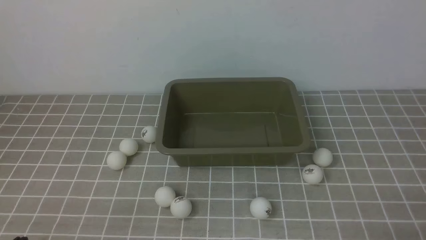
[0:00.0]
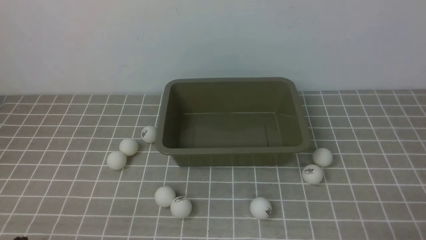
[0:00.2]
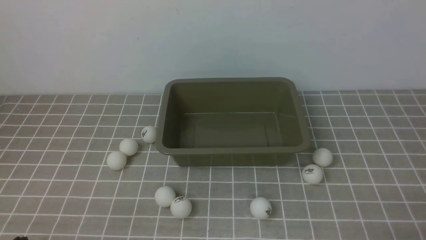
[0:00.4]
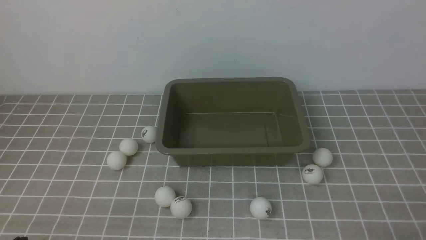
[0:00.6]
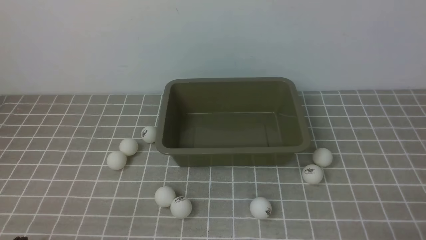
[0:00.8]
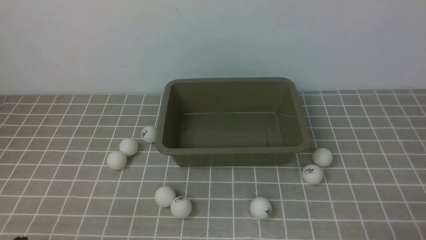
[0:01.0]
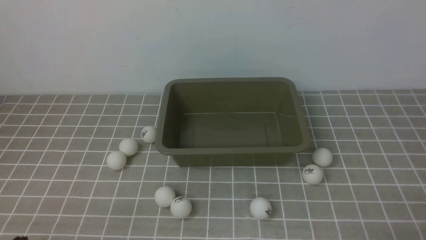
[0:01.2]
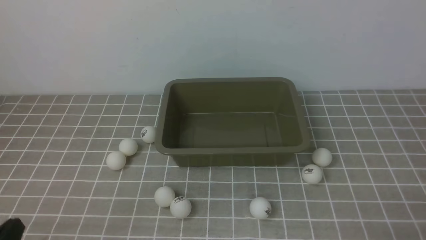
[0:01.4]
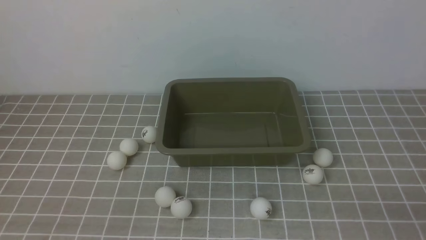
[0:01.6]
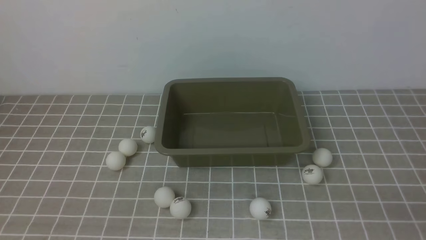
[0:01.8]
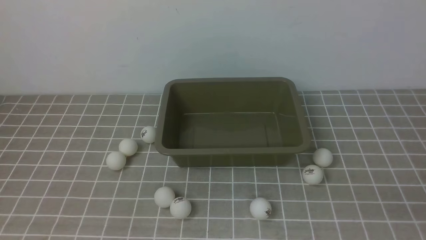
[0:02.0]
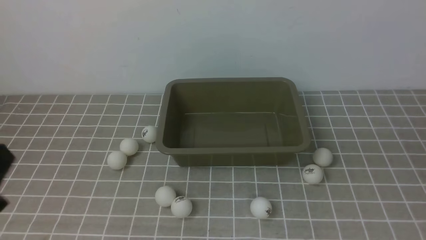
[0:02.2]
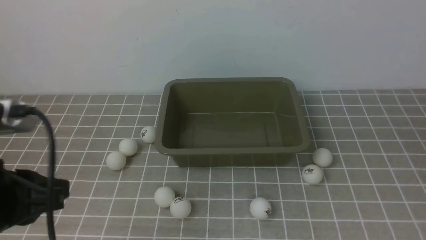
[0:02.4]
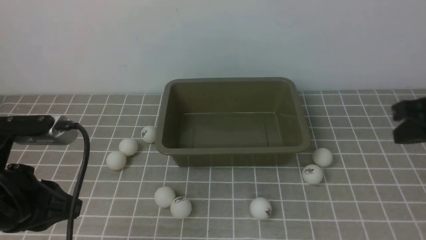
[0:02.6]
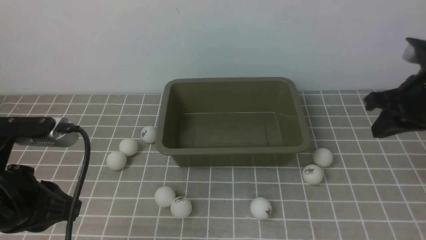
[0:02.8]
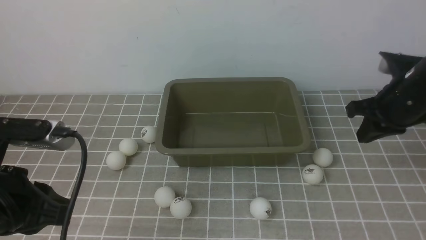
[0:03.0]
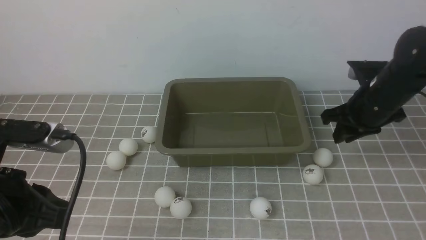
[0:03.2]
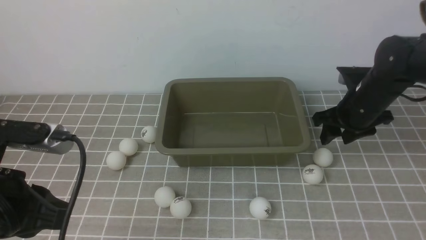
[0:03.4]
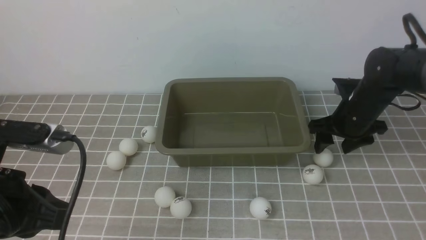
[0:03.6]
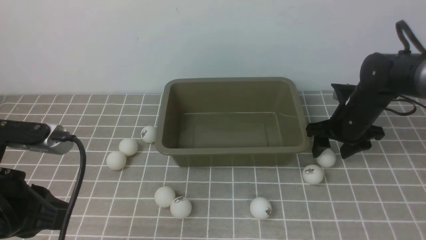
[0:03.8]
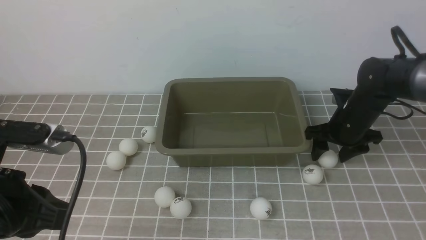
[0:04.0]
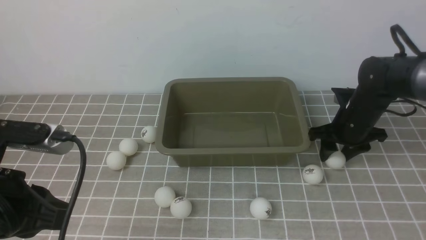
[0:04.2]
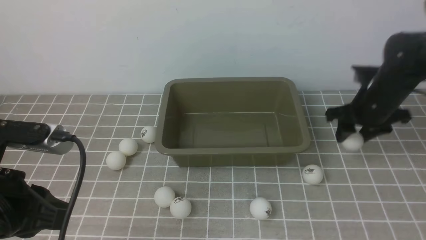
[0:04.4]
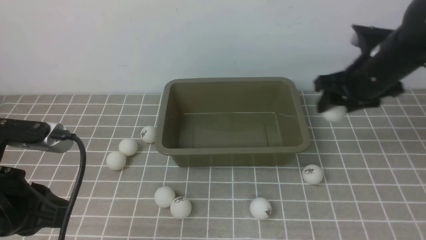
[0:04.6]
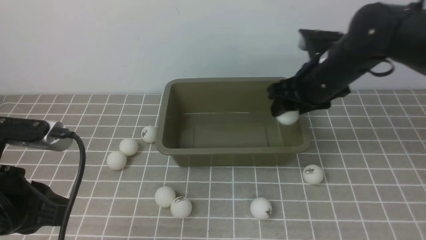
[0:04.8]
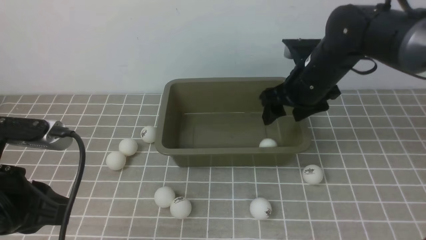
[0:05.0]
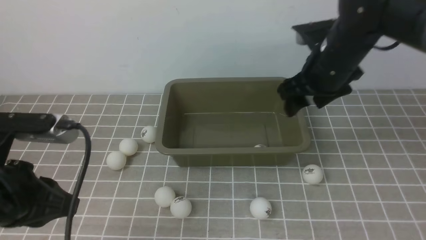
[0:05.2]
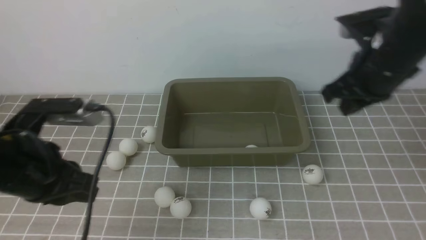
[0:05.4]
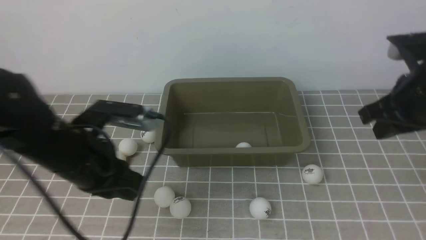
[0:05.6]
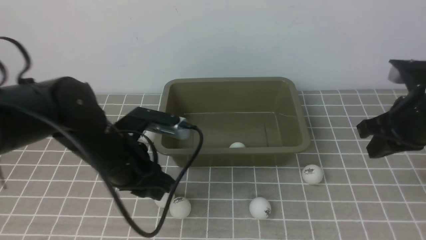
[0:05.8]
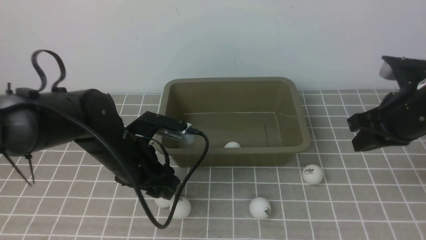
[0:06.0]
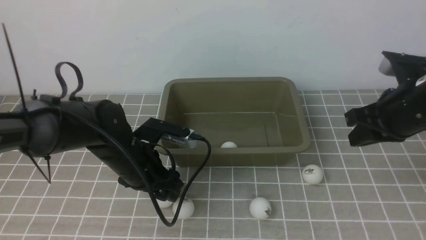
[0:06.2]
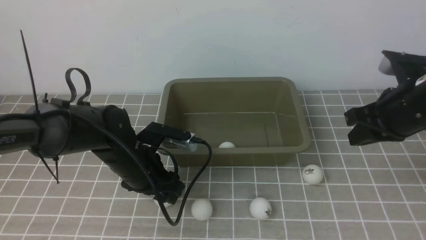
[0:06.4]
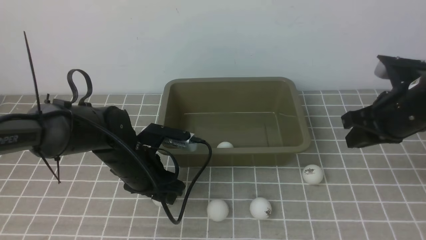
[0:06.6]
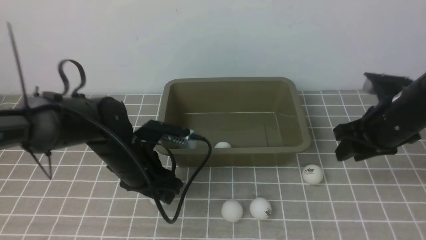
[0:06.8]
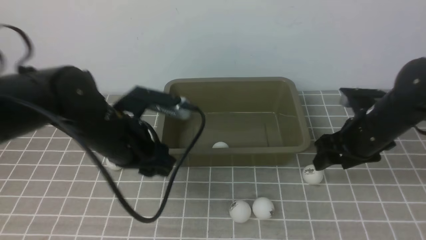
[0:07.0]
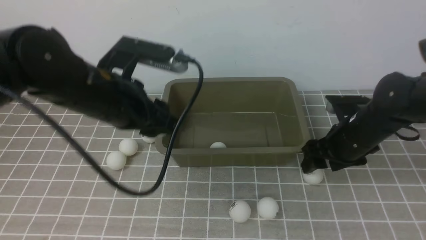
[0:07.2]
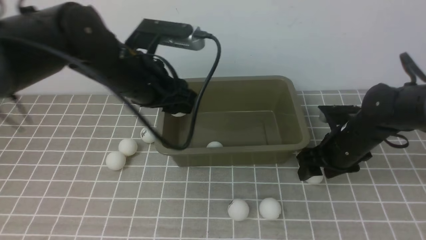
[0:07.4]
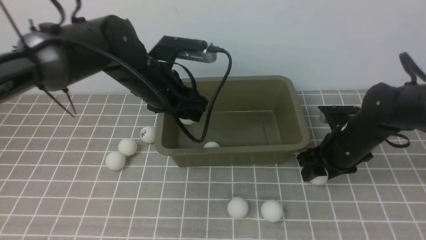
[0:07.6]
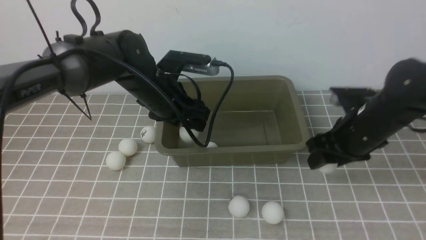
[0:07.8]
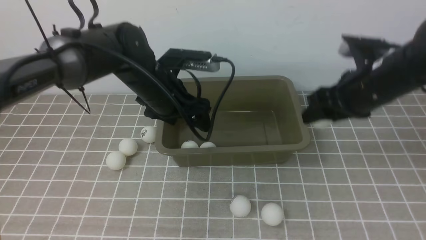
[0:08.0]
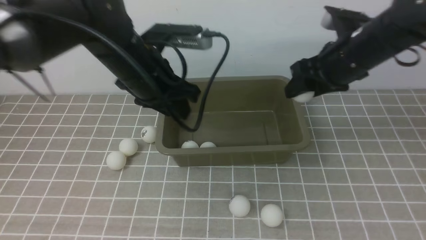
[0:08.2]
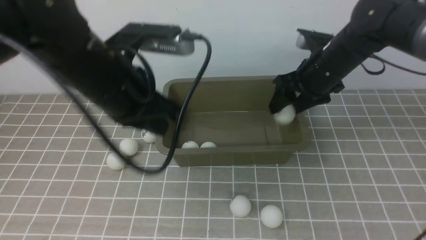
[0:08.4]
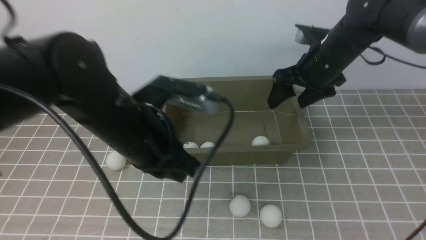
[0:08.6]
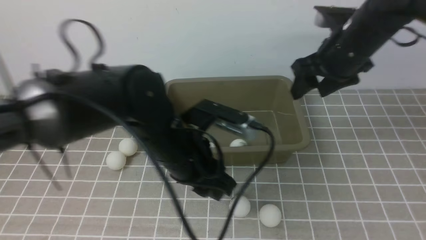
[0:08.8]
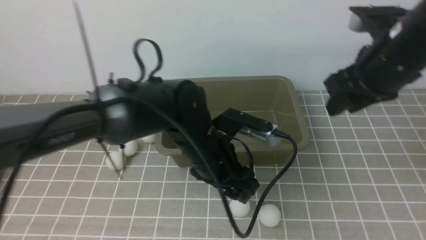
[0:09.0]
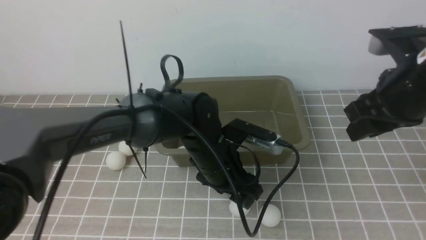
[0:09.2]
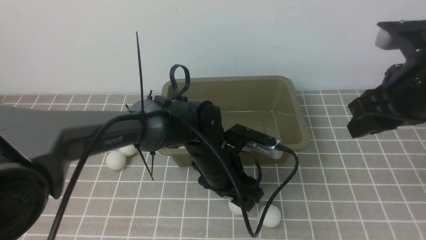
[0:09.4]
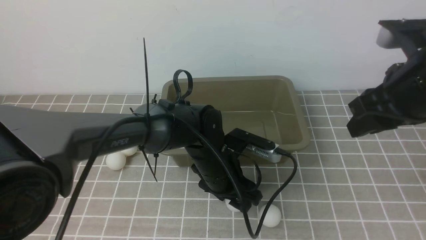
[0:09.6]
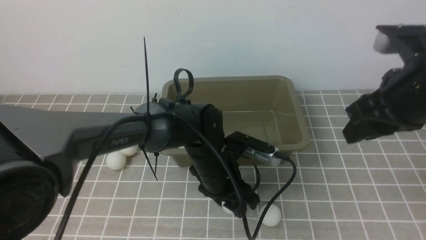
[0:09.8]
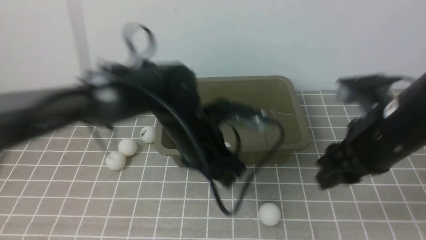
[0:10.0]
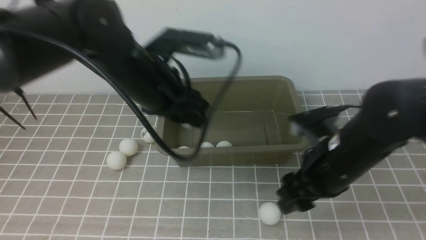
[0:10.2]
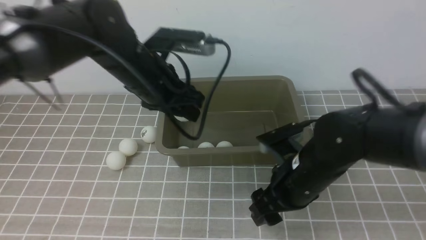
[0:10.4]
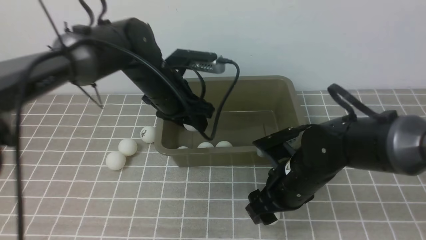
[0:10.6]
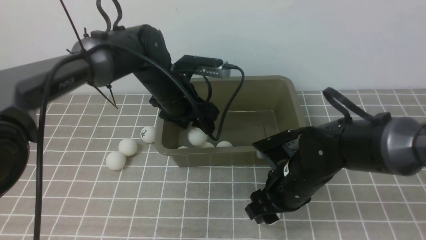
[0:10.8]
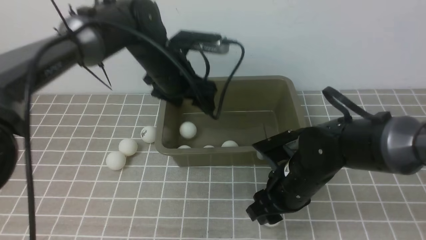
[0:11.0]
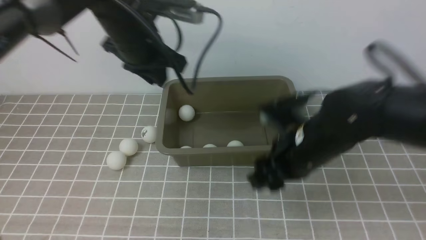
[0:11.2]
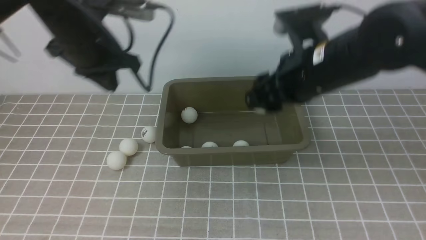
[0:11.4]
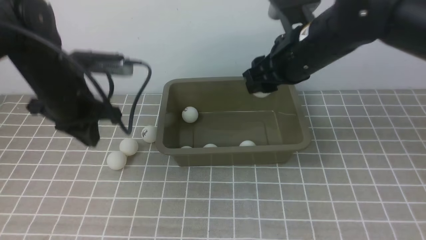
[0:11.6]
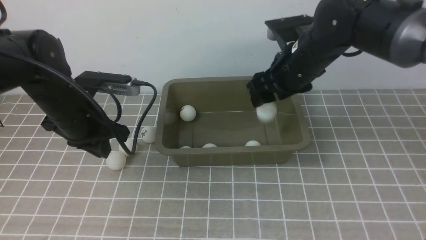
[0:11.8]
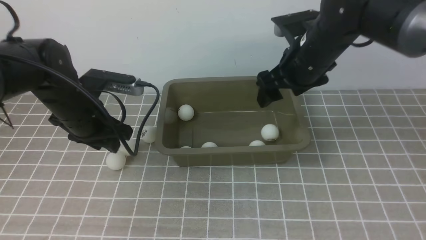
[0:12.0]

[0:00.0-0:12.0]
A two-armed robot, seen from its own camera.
Step, 0.0 to 4.4 s: use the right arm to clamp the table tennis ball closest to it.
Step, 4.6 to 5.0 s: use the right arm to put the table tennis ball into the box.
Step, 5.2 to 6.8 s: use the left arm to clamp the table tennis ball closest to it.
Step, 7.0 to 7.8 s: use the left arm to put the table tennis ball into the box.
Step, 8.2 to 8.4 s: use the right arm to put the table tennis ball into the box.
Step, 8.6 to 9.8 s: use the left arm to clamp the table tennis ball closest to it.
Step, 10.0 to 10.8 s: use the left arm to put the table tennis ball into the box.
Step, 11.0 to 11.2 s: use the right arm to clamp the table tennis ball closest to it.
Step, 11.4 to 11.8 s: use the right arm to put the table tennis ball into the box.
1.6 to 3.0 s: The left gripper is displaced forward and upward by about 15 cm. Meanwhile the right gripper goes about 30 cm forward.
3.0 to 4.4 s: The right gripper goes downward and returns, some 10 cm each way, and opens.
4.4 to 6.0 s: The right gripper shifts some 10 cm backward and upward, moves approximately 10 cm to the left and comes back, and closes, while the left gripper goes some 20 cm forward, to the right and downward, and opens up.
6.0 to 7.6 s: The right gripper goes about 10 cm downward, and opens. The left gripper moves forward and upward, about 10 cm.
7.6 to 9.0 s: The right gripper goes some 15 cm upward. Meanwhile the left gripper is displaced backward, to the right and downward by roughly 15 cm, and closes, then reopens.
9.0 to 10.4 s: The left gripper travels to the left, forward and upward by some 15 cm, while the right gripper shifts approximately 15 cm downward and to the left, and opens its fingers.
10.4 to 12.0 s: The left gripper moves to the left and downward, approximately 15 cm, and closes and opens again, while the right gripper heads forward and upward, covering approximately 15 cm.

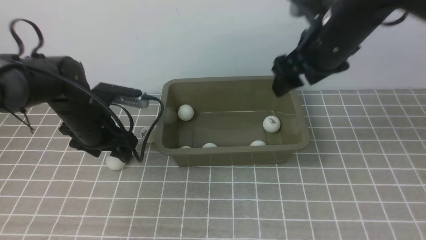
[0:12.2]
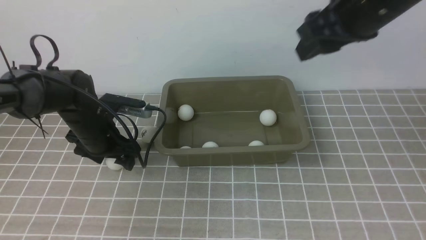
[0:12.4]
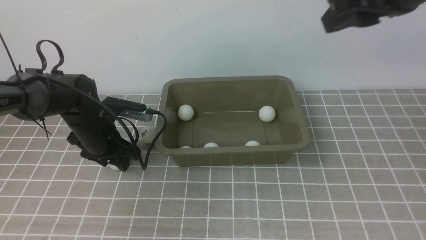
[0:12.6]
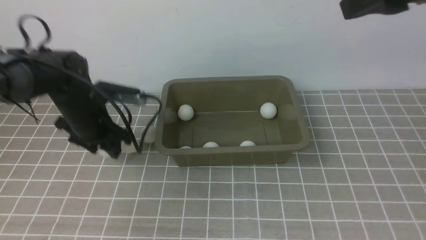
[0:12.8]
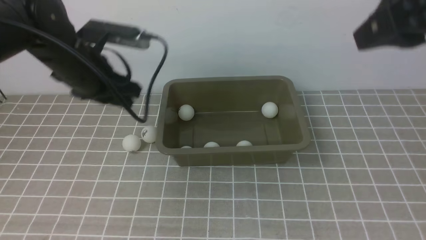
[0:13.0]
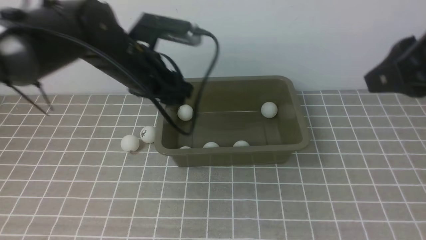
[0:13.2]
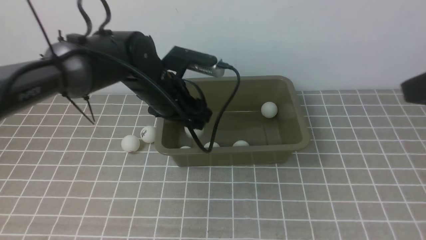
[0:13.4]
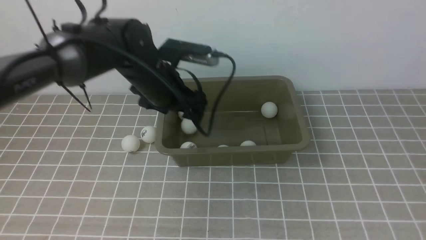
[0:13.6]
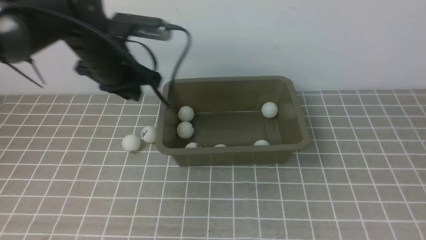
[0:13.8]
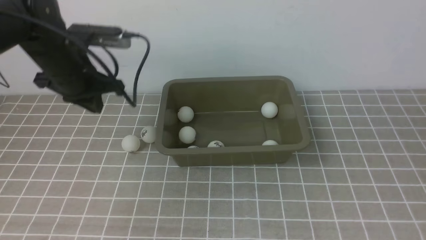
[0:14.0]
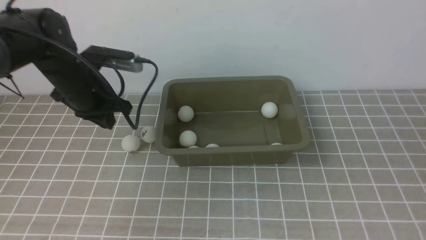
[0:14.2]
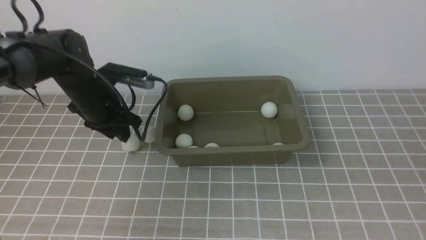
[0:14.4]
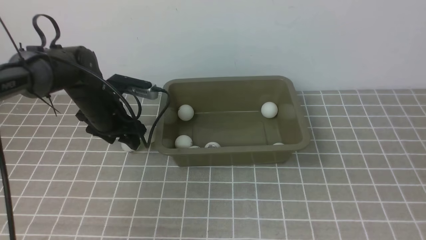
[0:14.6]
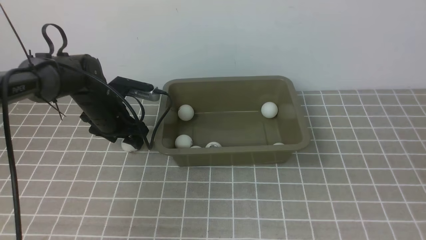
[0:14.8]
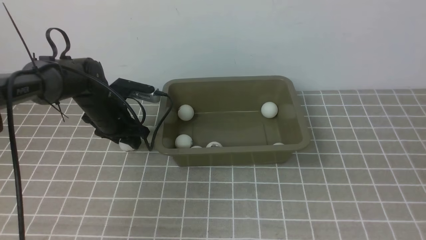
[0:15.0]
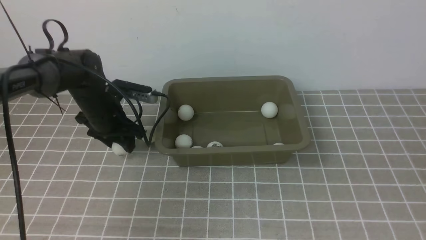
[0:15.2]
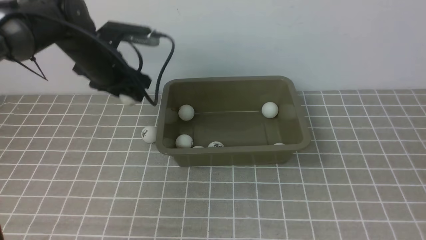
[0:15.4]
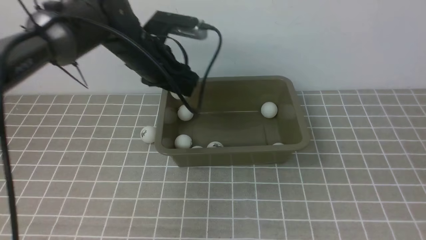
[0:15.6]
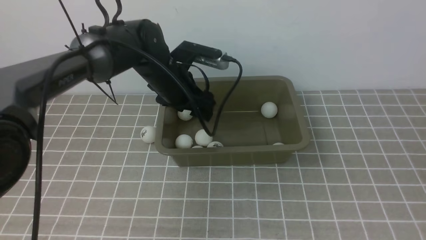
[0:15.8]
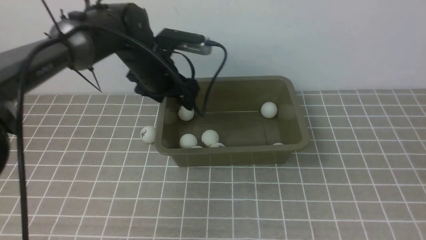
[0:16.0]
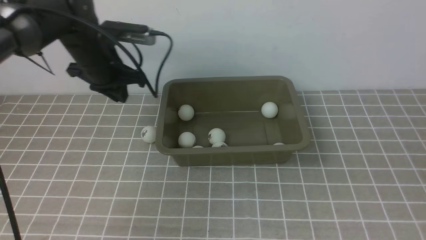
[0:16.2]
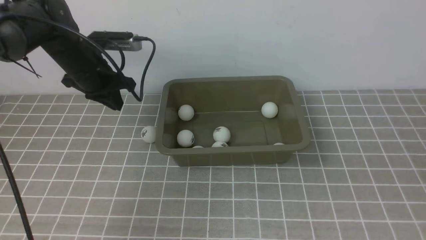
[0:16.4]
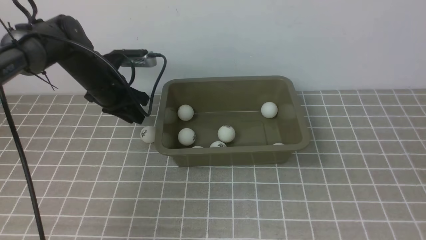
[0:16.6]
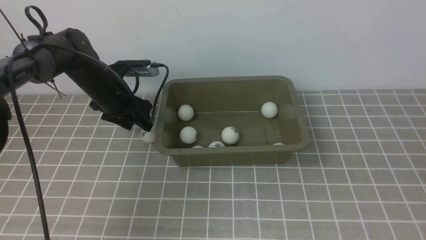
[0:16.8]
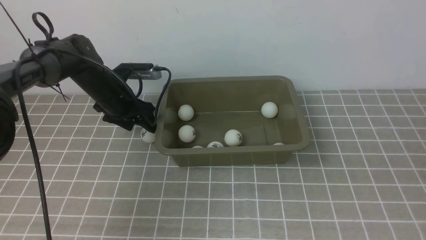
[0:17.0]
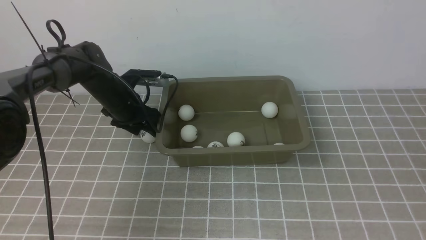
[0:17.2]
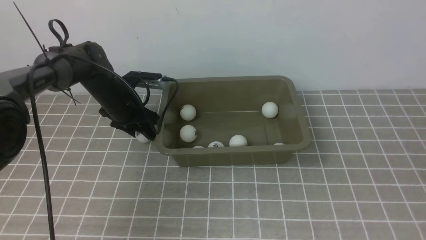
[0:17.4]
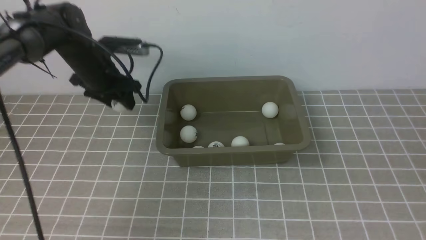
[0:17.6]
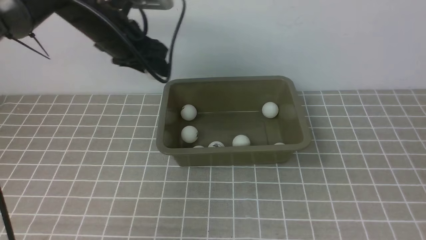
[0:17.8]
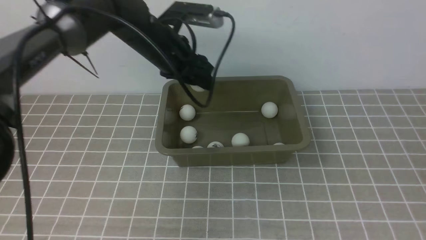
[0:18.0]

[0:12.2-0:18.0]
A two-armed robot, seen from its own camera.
Step, 12.2 to 12.8 s: use the left arm to clamp the table tennis ball closest to it.
Step, 13.0 to 13.4 s: use the left arm to put the table tennis ball into the box.
Step, 13.8 to 15.2 s: use the left arm to clamp the table tennis ball closest to it.
Step, 15.4 to 15.8 s: use the left arm to put the table tennis ball into the box.
Step, 16.0 to 17.6 s: use the left arm to clamp the table tennis ball closest to it.
12.2 to 13.6 s: The left gripper heads to the right and upward, covering some 10 cm. Meanwhile the right gripper is displaced backward and to the right by about 25 cm, and closes up.
13.6 to 15.0 s: The left gripper heads downward and to the left, covering some 15 cm, and closes, then reopens, while the right gripper shifts approximately 15 cm backward, downward and to the right.
15.0 to 16.6 s: The left gripper travels to the right and back again, roughly 10 cm each way.
16.6 to 18.0 s: The left gripper goes some 15 cm to the right and upward, and opens its fingers.
